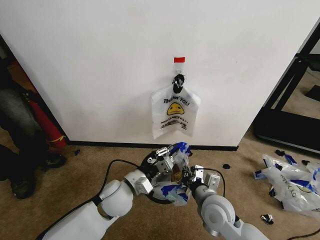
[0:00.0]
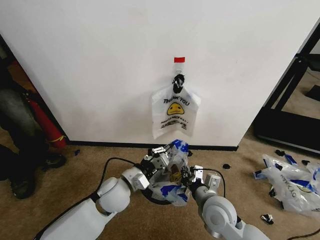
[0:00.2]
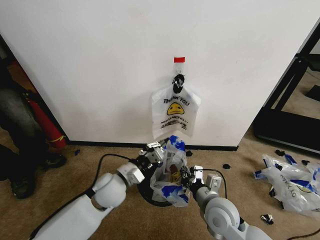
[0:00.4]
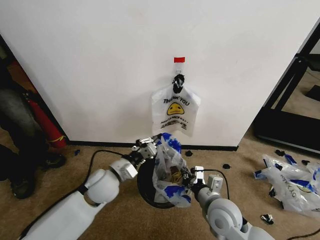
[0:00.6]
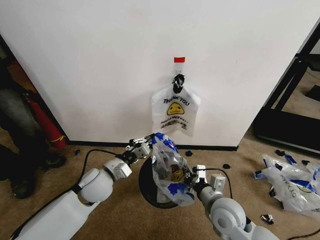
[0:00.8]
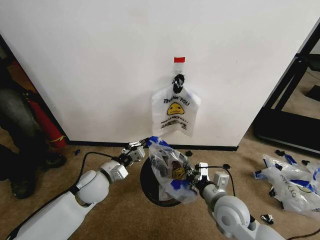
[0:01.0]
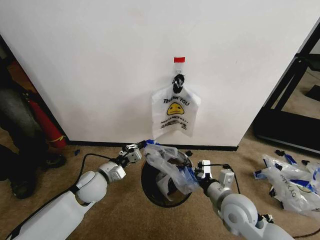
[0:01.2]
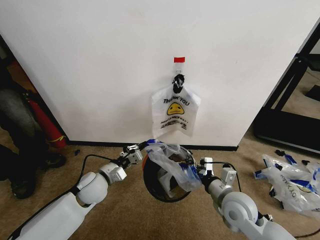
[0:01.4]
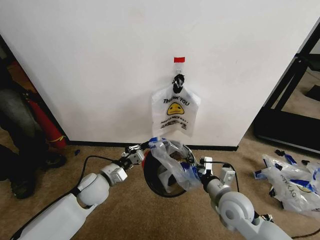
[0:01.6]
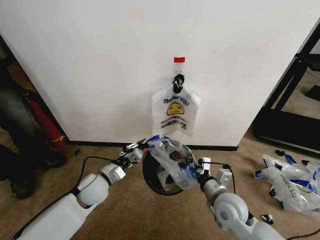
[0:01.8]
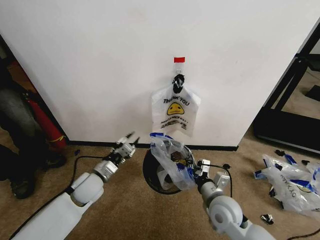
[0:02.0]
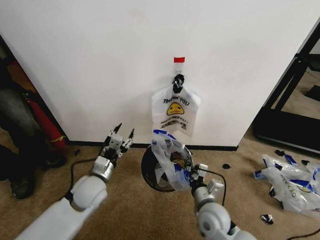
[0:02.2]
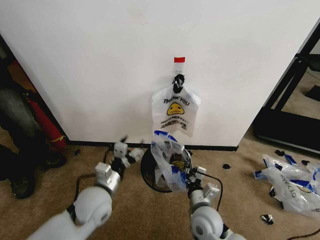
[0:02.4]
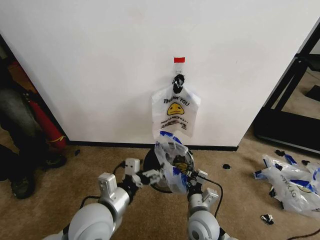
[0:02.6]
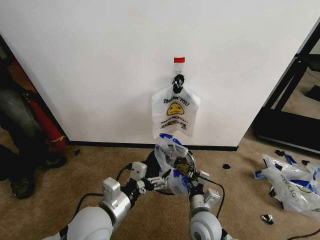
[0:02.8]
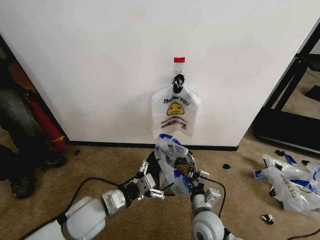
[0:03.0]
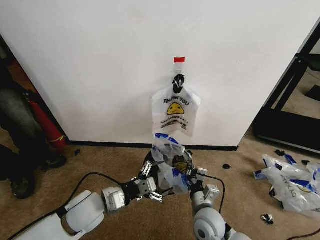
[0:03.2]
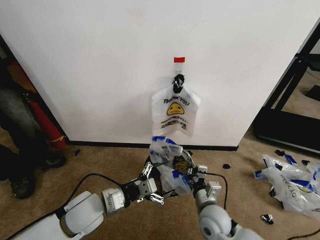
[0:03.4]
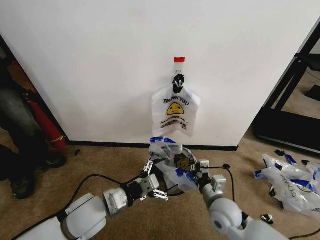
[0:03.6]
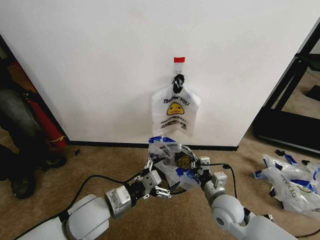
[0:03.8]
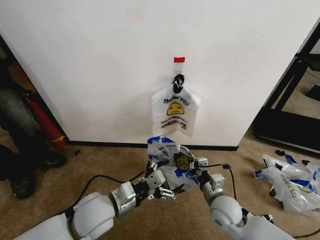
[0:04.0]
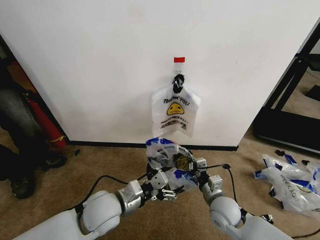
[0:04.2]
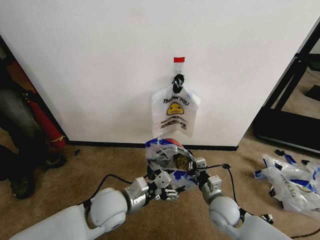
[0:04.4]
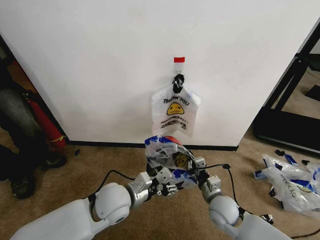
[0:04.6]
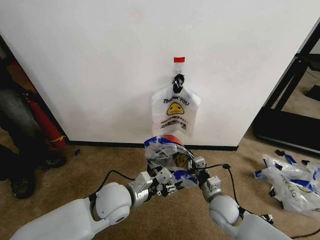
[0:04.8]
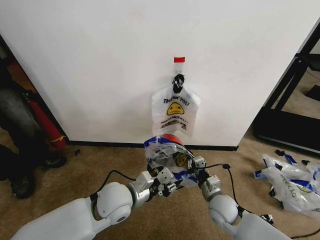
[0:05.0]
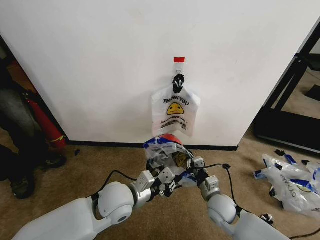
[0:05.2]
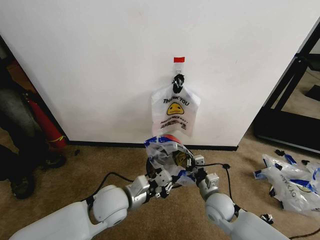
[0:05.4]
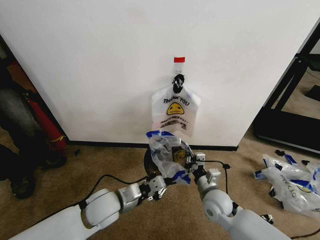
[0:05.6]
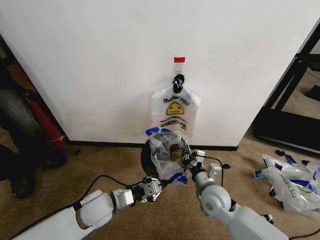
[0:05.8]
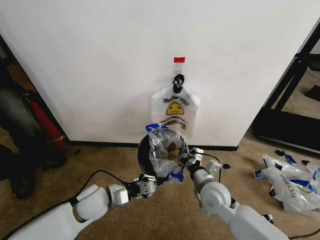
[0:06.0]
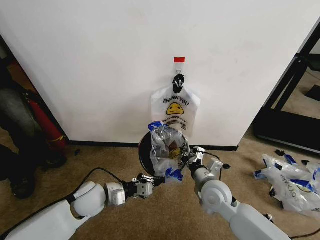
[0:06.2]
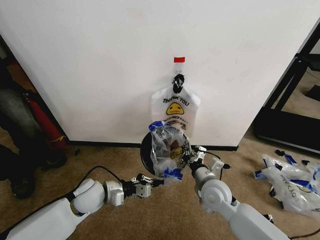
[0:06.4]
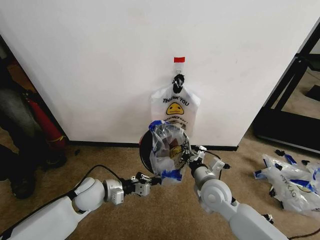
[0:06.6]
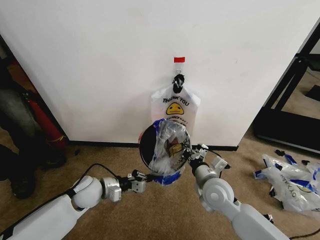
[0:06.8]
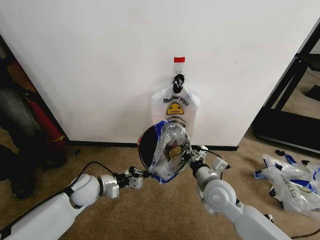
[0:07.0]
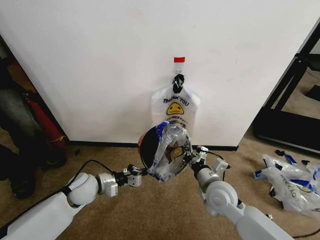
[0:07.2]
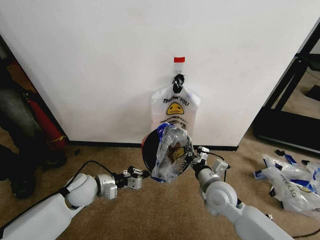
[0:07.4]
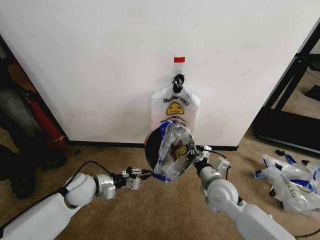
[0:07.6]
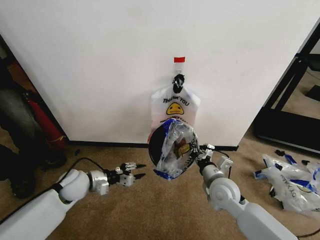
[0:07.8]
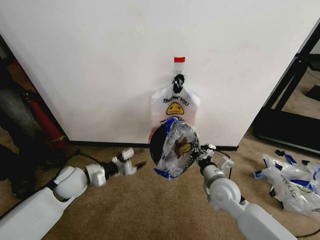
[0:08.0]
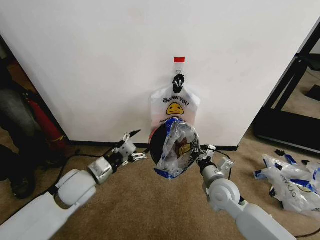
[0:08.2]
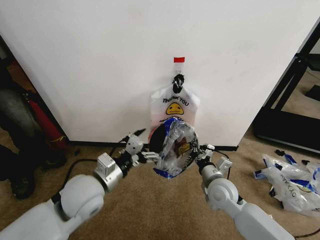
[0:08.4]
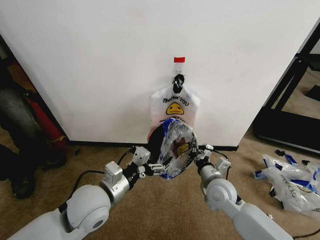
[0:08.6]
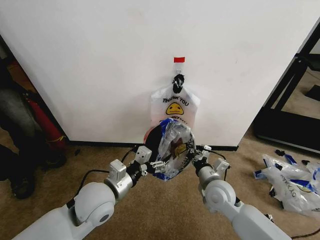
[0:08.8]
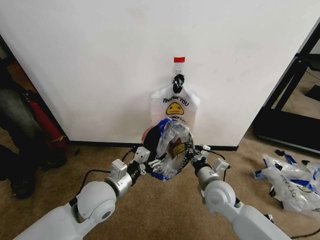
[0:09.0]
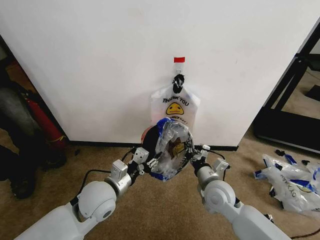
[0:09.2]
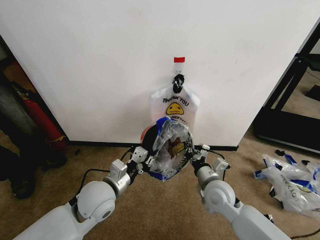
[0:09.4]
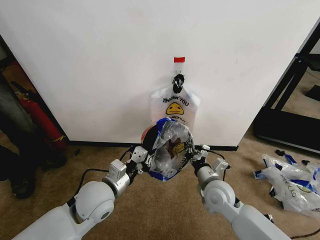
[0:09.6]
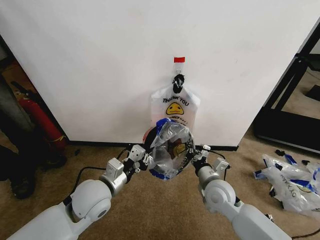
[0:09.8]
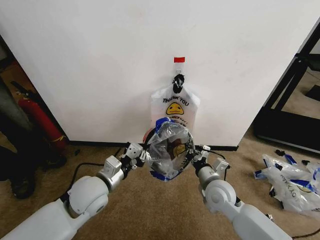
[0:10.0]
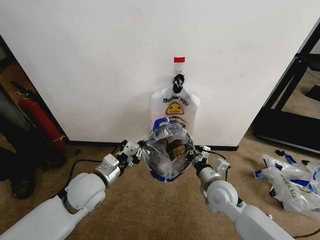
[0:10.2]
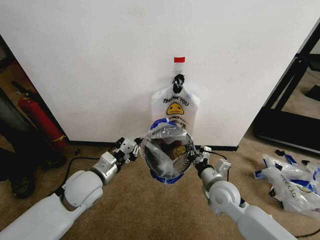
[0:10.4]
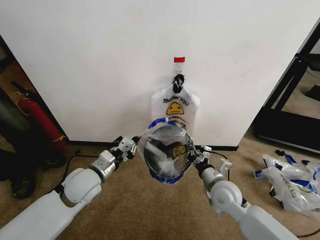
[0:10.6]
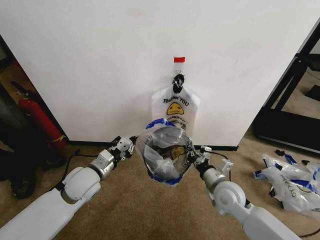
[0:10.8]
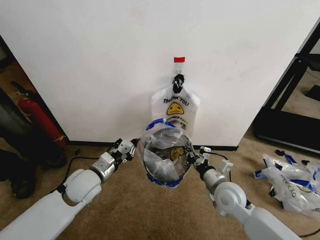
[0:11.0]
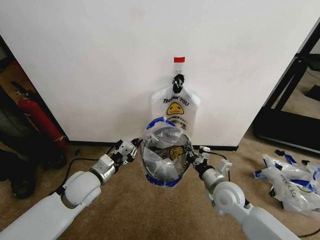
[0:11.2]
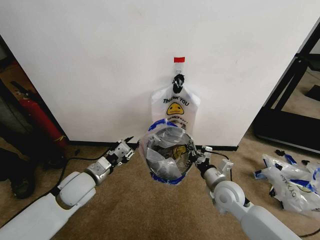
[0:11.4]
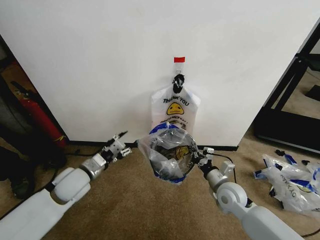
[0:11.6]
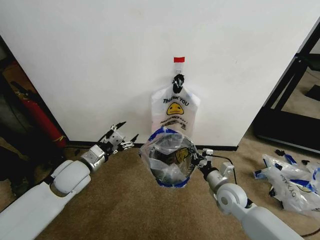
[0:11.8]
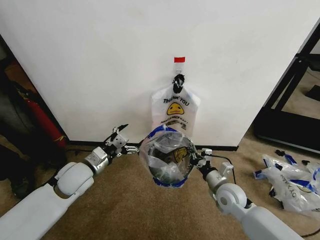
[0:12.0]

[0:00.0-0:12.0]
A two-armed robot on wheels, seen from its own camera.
Task of the whole recording: Pick up the garbage bag from the wall and place it over the trash bin.
0.0 to 1.6 s: The left gripper goes approximately 10 cm to the left; the right gripper moves to the right, about 5 cm.
1.6 to 3.0 s: The left gripper goes some 10 cm backward, and opens. The right gripper travels to the left and downward by roughly 10 cm.
3.0 to 4.4 s: Both grippers travel together to the right, roughly 5 cm.
4.4 to 6.0 s: The left gripper heads to the left and downward, covering roughly 10 cm, and closes up; the right gripper is displaced upward by roughly 5 cm.
6.0 to 7.6 s: The left gripper travels to the left by about 5 cm.
7.6 to 9.0 s: The left gripper shifts approximately 15 cm to the right, upward and backward, and opens its fingers.
9.0 to 10.4 s: The left gripper changes place by roughly 5 cm, and closes its fingers.
10.4 to 12.0 s: The left gripper shifts by about 5 cm, and opens its fingers. Meanwhile the right gripper changes place by roughly 5 cm.

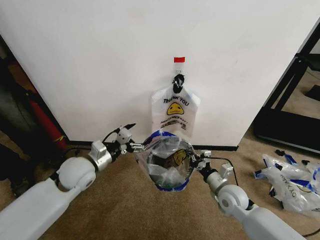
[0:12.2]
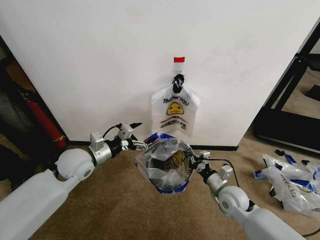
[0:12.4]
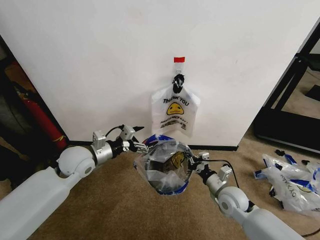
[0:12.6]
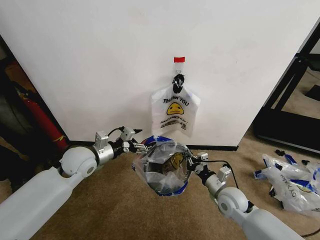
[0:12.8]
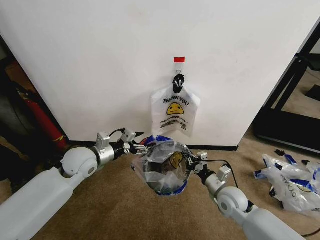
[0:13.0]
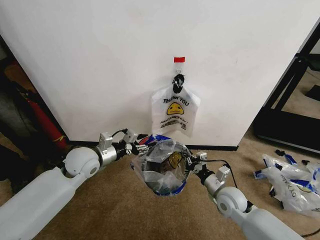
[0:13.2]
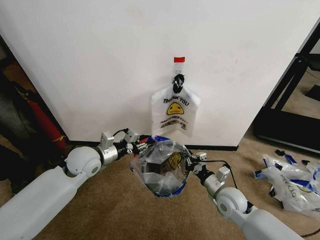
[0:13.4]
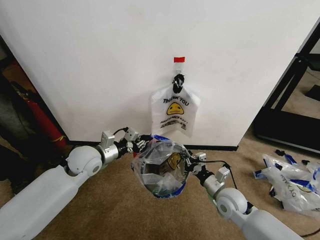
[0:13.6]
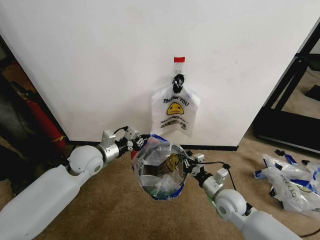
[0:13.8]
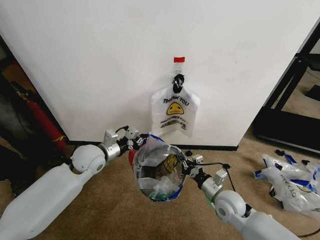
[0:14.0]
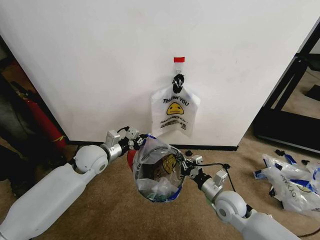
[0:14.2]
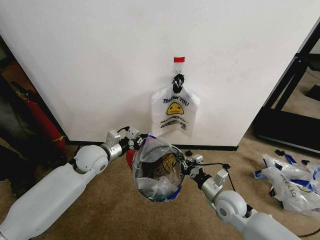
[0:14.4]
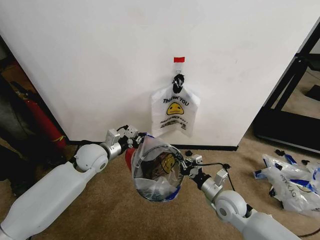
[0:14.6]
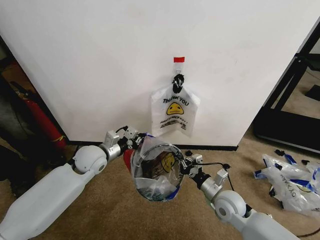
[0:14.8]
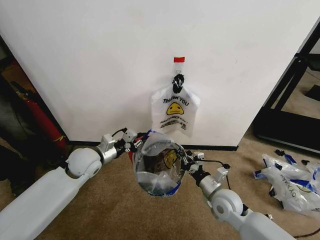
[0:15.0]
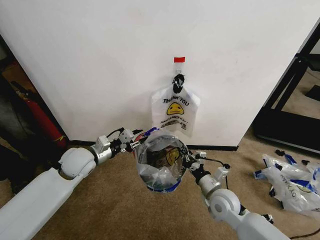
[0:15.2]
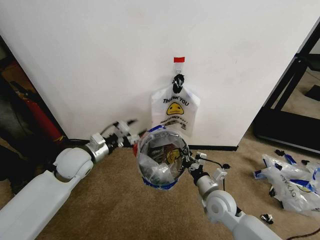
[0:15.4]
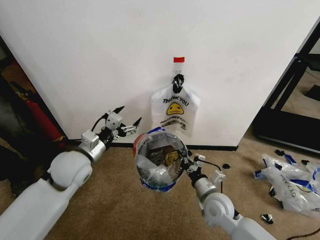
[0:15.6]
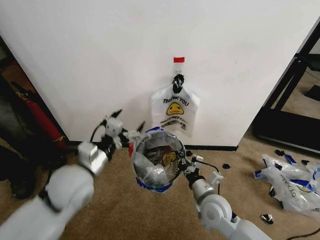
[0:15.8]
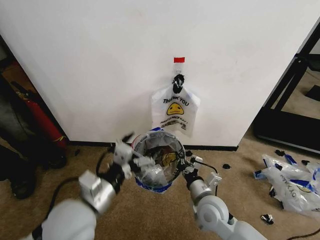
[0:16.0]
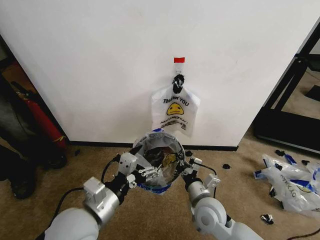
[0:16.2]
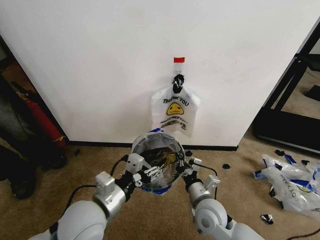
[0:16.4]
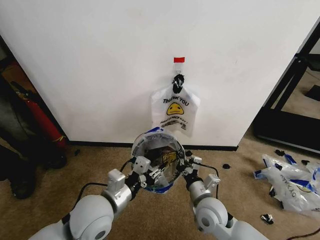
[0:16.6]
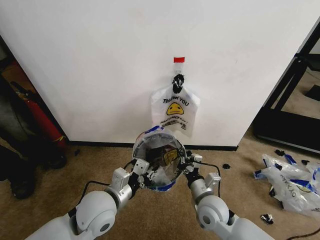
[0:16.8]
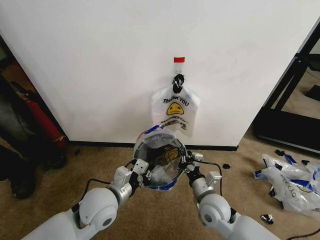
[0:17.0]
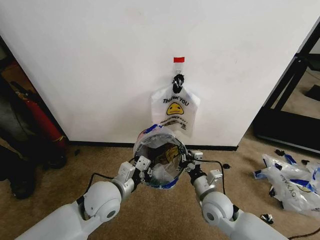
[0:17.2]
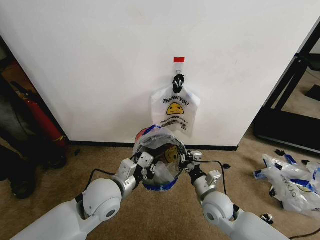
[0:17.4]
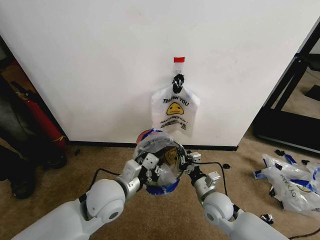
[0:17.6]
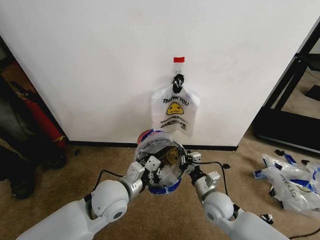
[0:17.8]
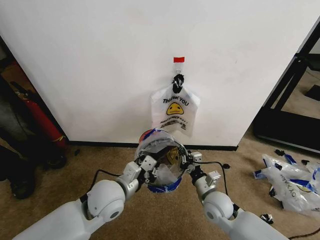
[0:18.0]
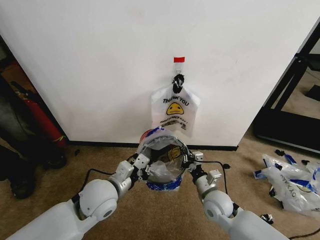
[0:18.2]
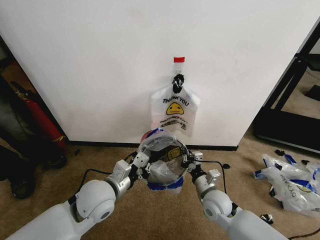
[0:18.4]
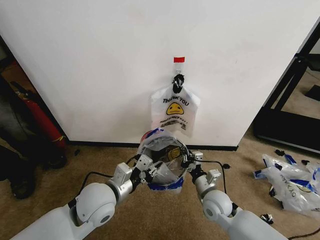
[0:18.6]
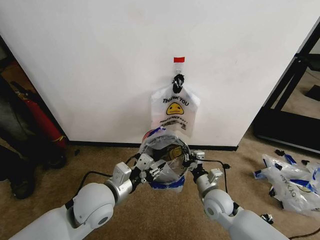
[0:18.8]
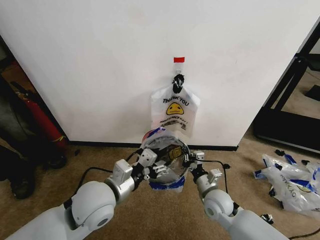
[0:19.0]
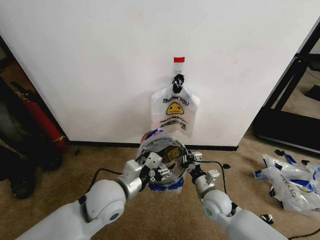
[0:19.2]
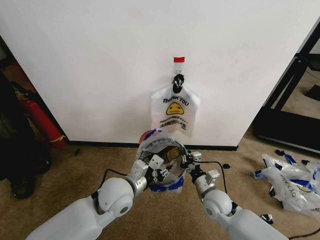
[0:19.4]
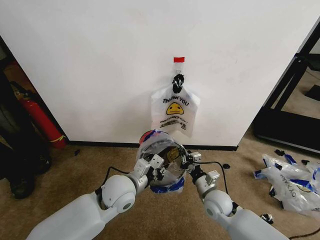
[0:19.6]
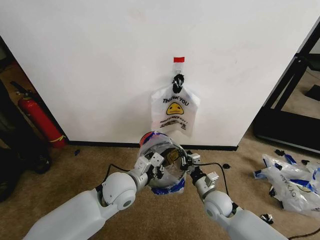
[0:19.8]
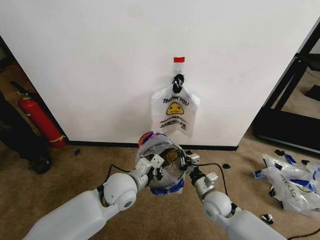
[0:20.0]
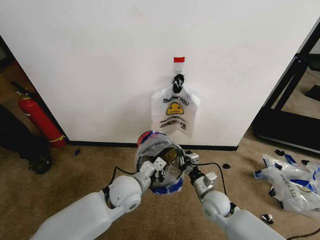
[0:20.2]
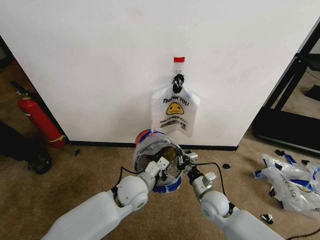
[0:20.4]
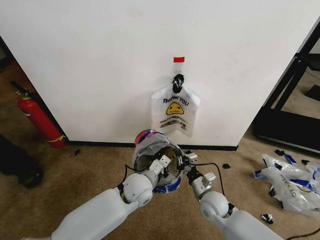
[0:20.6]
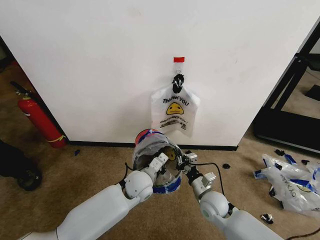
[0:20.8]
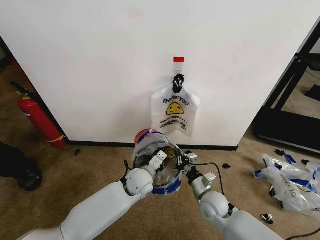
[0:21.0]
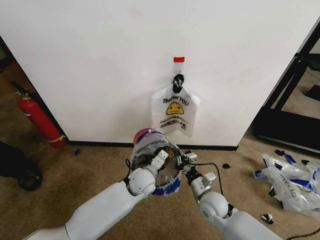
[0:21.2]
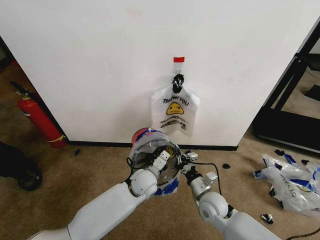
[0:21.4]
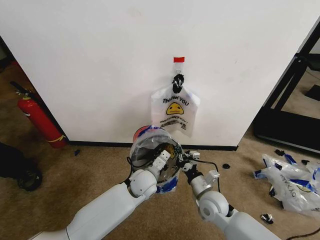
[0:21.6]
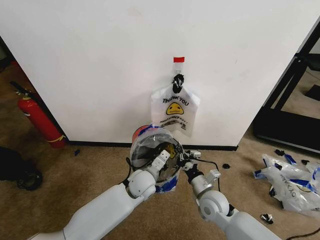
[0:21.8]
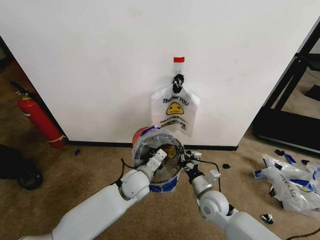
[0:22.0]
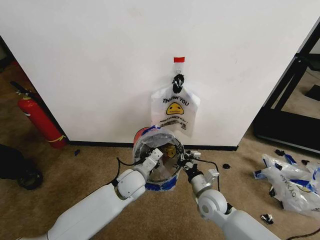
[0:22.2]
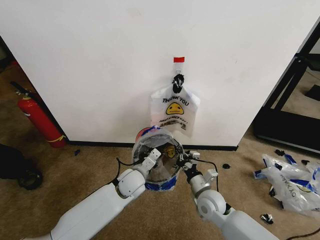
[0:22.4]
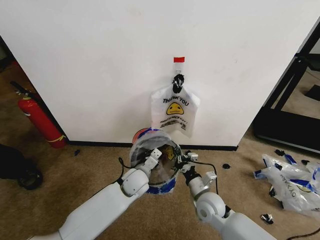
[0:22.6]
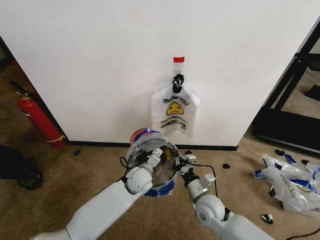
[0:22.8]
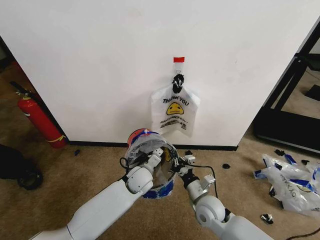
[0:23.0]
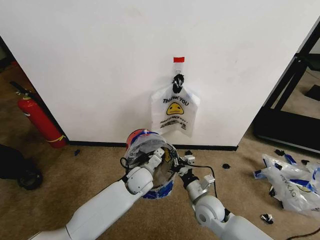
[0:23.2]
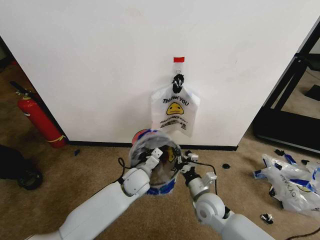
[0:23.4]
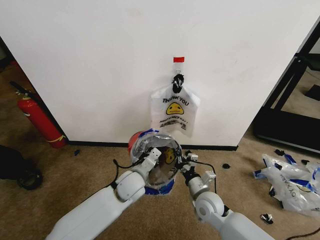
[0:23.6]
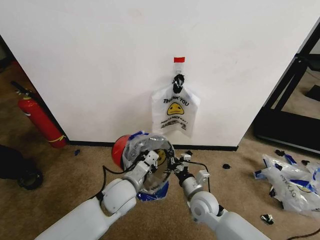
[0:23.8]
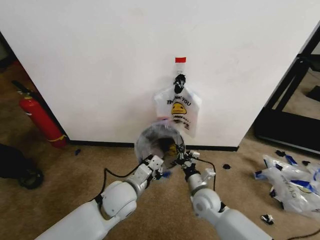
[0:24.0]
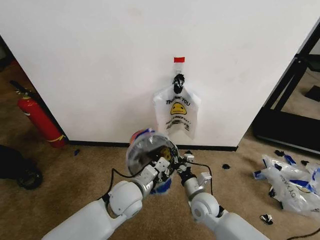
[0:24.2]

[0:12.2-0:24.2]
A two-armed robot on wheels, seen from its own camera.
Task of the whole recording: Pick up the garbage bag from the wall and place it over the trash bin.
12.2 to 13.8 s: The left gripper closes up.
13.8 to 15.2 s: The left gripper opens up.
15.2 to 16.6 s: The right gripper goes some 5 cm to the left. Meanwhile the left gripper is displaced backward and to the right by approximately 20 cm, and opens and closes again.
16.6 to 18.2 s: The left gripper changes place by roughly 5 cm, and closes its fingers, while the right gripper shifts by roughly 5 cm.
18.2 to 19.8 s: The left gripper ends up some 5 cm from where it was, and opens, then closes once more.
19.8 to 21.2 s: The left gripper moves downward, forward and to the right, some 10 cm.
21.2 to 22.6 s: The grippers move only a little.
22.6 to 24.2 s: The left gripper is displaced backward and upward by approximately 10 cm.
